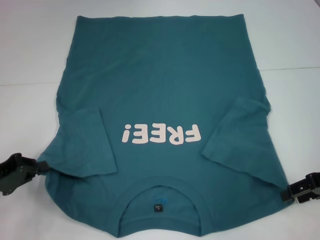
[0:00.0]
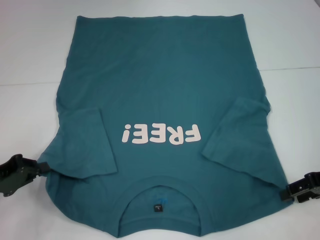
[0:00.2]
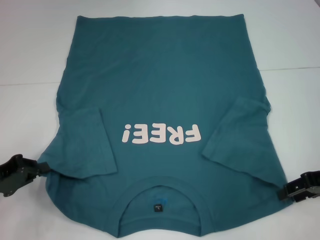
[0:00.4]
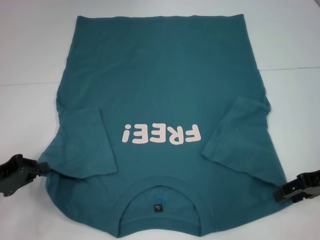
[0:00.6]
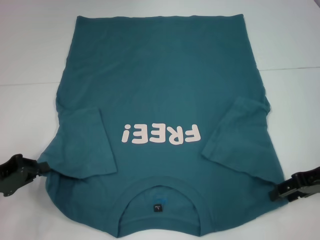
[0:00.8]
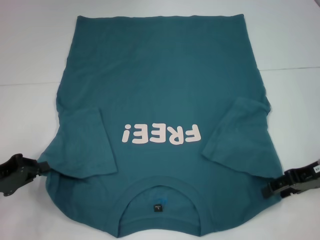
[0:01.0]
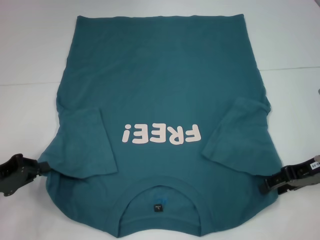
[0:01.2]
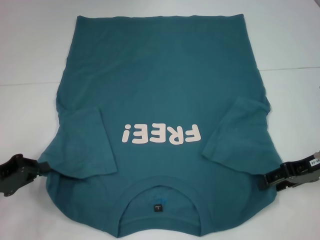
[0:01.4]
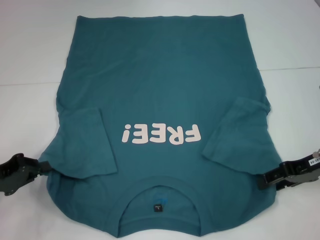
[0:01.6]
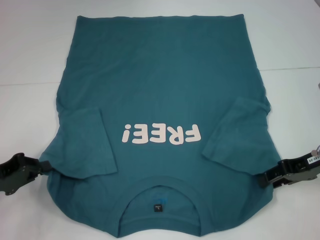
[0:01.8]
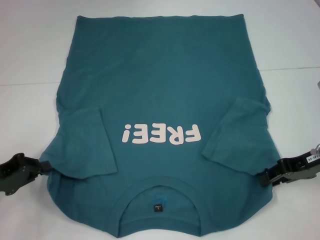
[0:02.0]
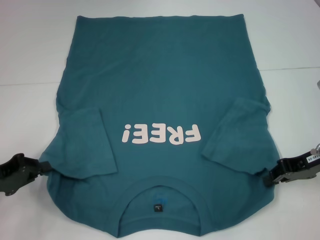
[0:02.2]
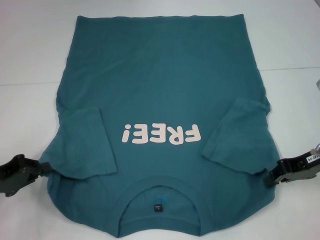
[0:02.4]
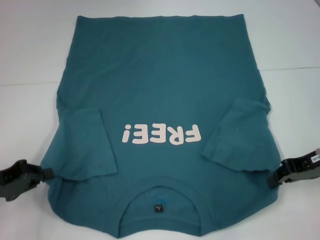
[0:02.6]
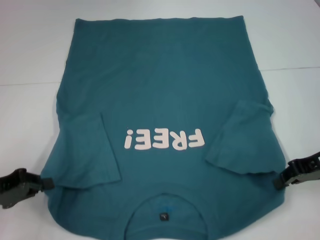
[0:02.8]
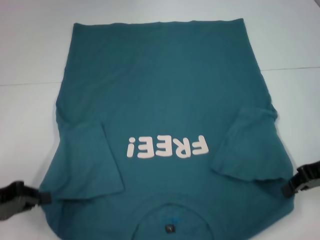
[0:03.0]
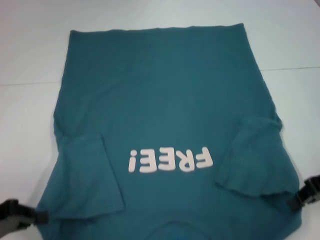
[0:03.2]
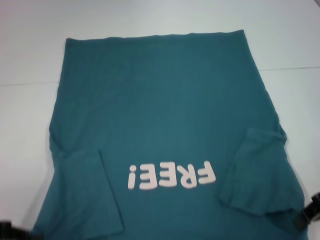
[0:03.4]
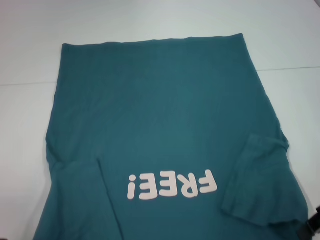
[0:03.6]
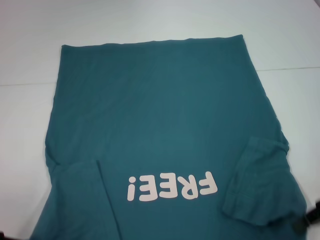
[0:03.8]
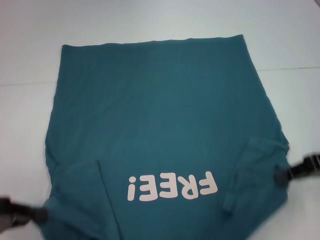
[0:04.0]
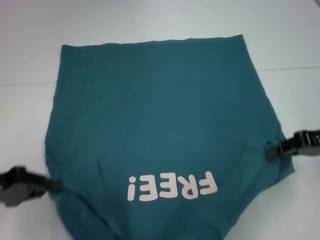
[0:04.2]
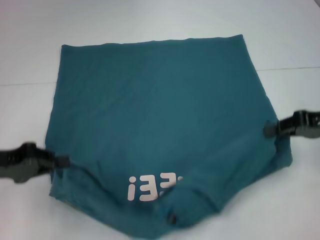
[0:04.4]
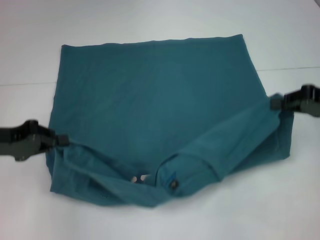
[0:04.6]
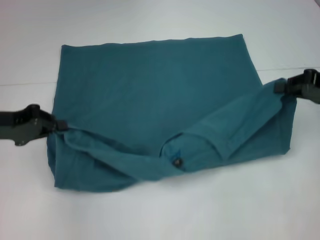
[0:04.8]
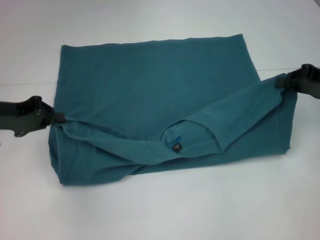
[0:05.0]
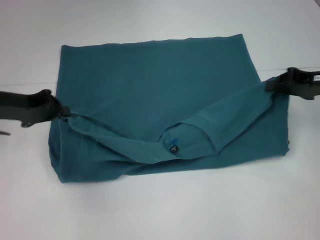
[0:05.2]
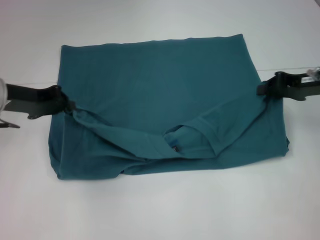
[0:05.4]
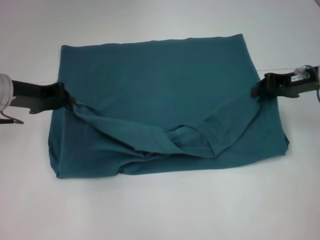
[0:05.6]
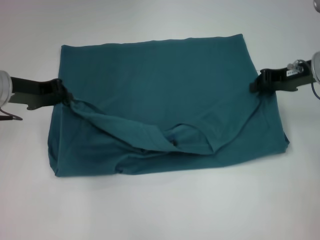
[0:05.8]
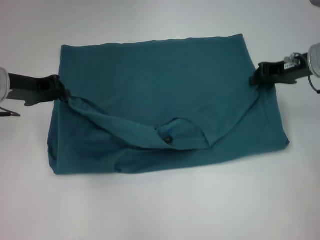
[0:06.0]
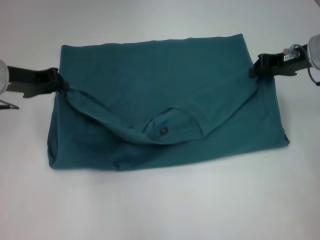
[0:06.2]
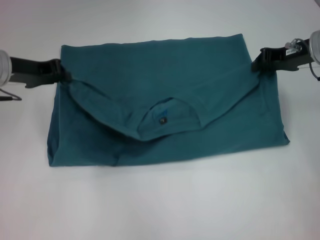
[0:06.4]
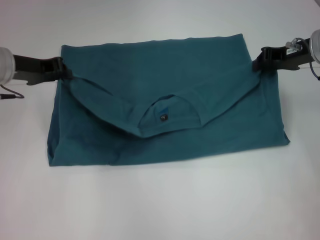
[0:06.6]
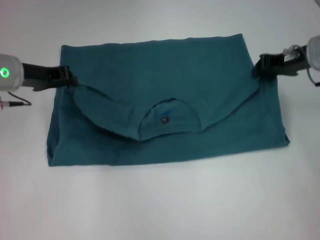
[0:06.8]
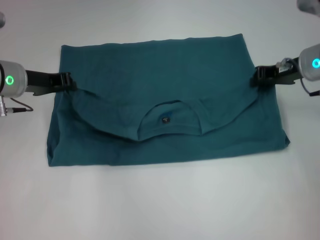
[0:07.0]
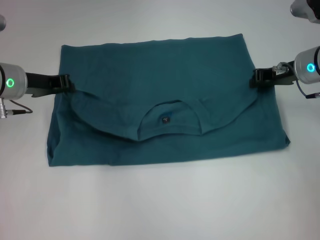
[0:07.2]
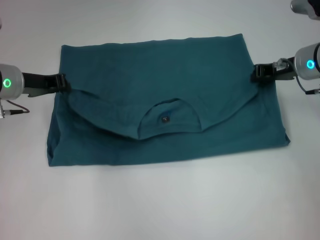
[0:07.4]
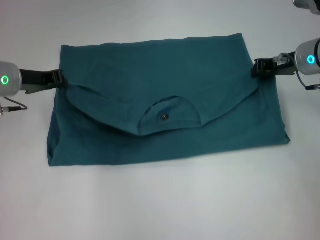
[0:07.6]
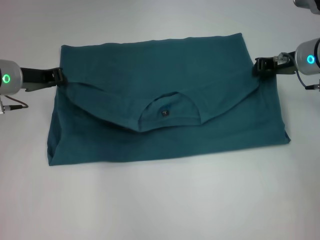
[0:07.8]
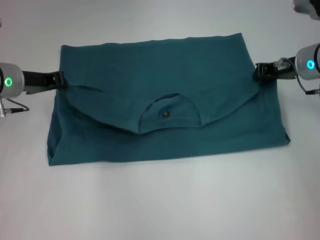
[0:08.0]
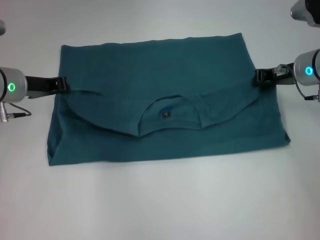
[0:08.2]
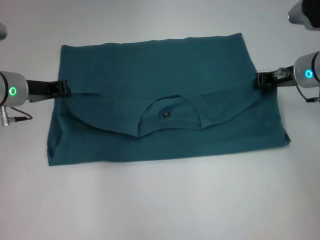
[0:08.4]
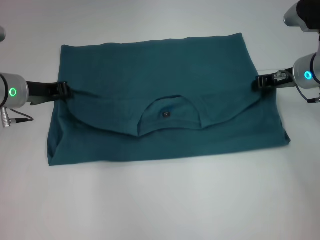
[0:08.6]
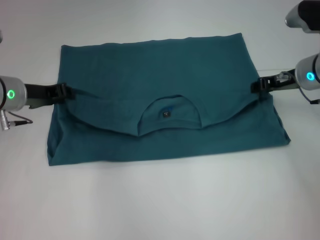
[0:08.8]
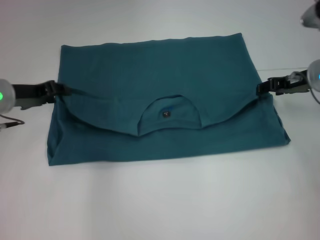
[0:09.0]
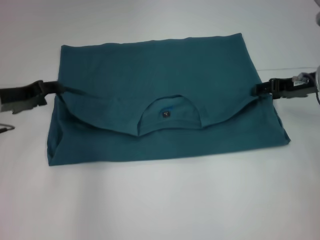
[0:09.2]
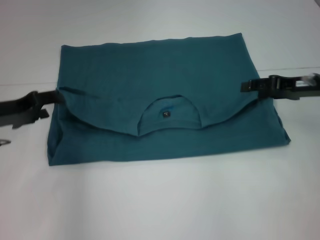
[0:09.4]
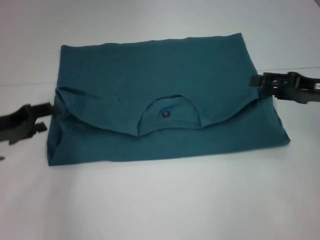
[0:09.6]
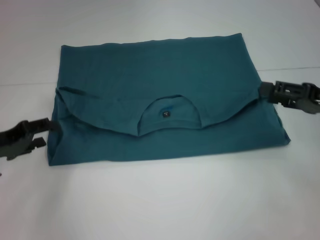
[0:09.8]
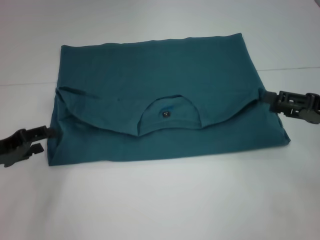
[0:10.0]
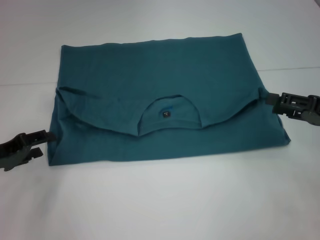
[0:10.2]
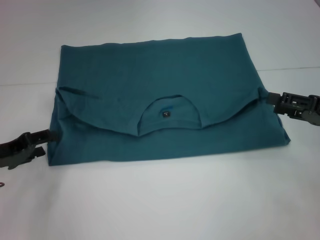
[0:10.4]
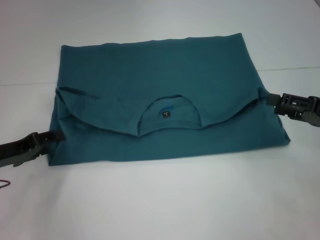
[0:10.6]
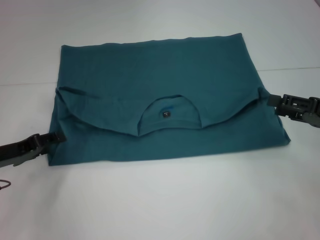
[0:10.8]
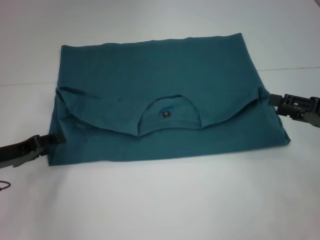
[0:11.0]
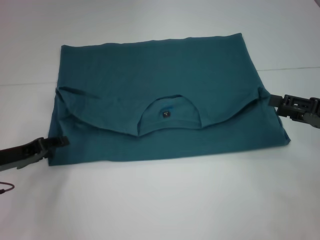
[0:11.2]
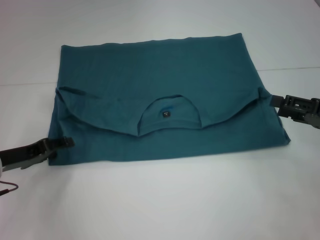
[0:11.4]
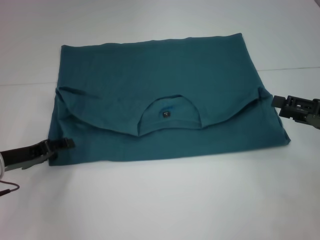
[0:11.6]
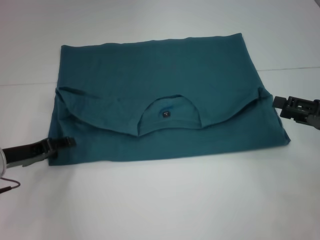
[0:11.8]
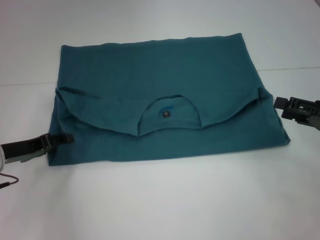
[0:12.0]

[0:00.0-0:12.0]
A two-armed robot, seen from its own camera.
Step, 0.0 to 2.2 s: Grab the bottom right corner with your right hand.
Step, 2.4 to 8.6 s: Fold the clothes to the left.
Step, 2.4 to 8.6 s: Fold the clothes to the right.
0.0 to 1.6 s: The grippers stay close to where they were, moving slightly.
1.6 to 3.0 s: The right gripper closes up.
3.0 to 4.4 s: The left gripper shifts by about 5 cm.
4.4 to 6.0 s: The right gripper moves forward and to the left, about 10 cm, while the left gripper goes approximately 10 cm forward.
6.0 to 7.6 s: The grippers stay close to where they were, moving slightly.
7.6 to 9.0 s: The right gripper opens, while the left gripper opens its fingers.
9.0 to 10.4 s: The left gripper heads backward and downward, covering approximately 10 cm. Meanwhile the right gripper travels backward and to the right by roughly 15 cm, and opens up.
10.4 to 12.0 s: The grippers move only a little.

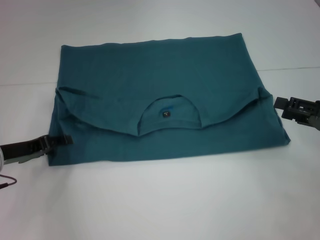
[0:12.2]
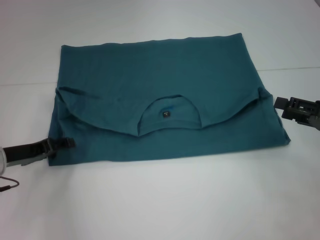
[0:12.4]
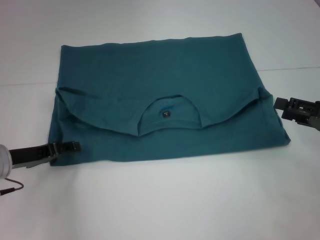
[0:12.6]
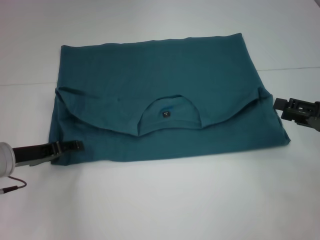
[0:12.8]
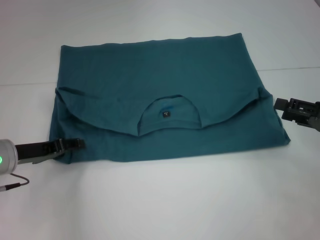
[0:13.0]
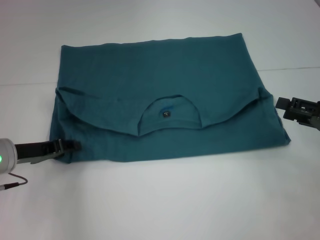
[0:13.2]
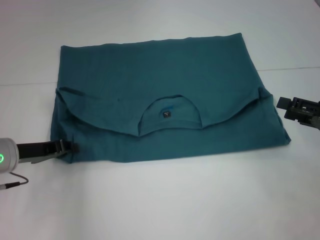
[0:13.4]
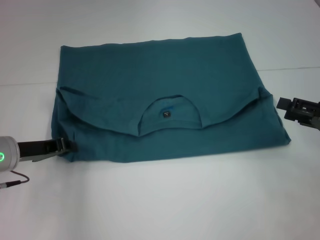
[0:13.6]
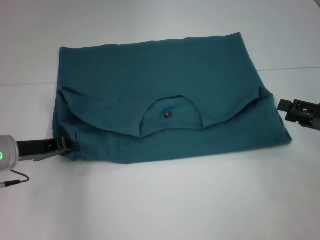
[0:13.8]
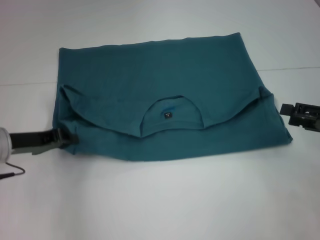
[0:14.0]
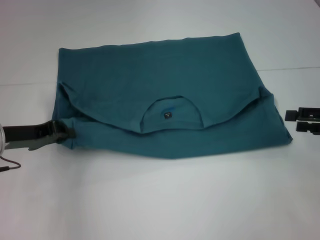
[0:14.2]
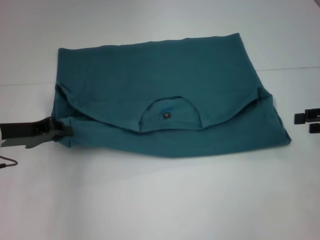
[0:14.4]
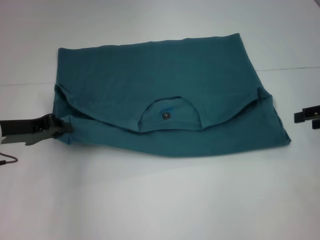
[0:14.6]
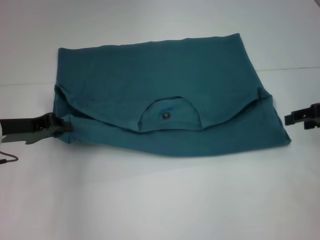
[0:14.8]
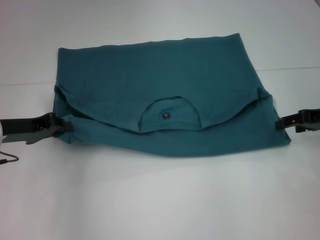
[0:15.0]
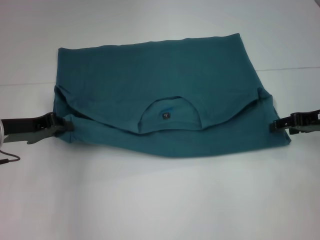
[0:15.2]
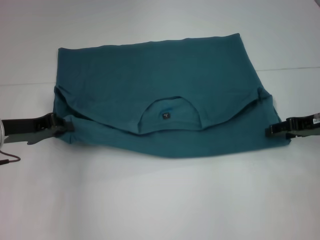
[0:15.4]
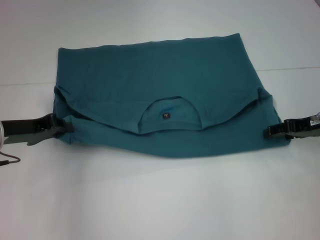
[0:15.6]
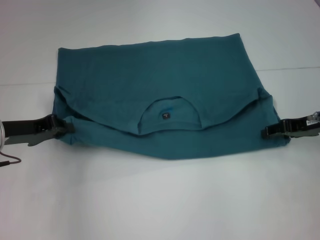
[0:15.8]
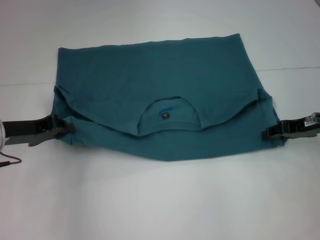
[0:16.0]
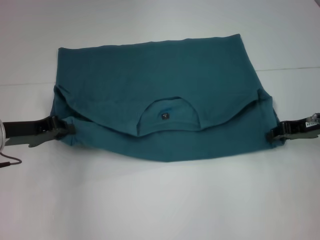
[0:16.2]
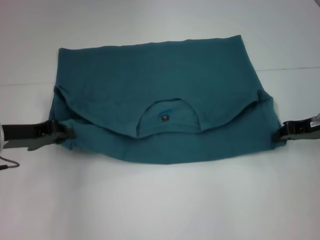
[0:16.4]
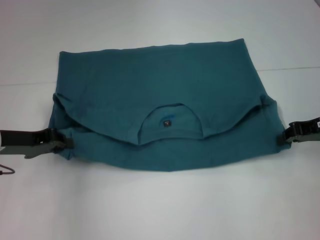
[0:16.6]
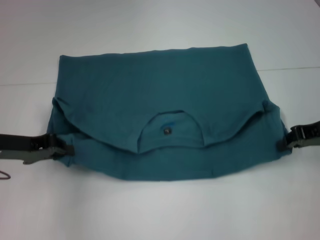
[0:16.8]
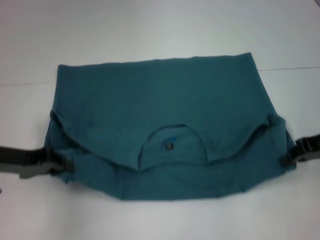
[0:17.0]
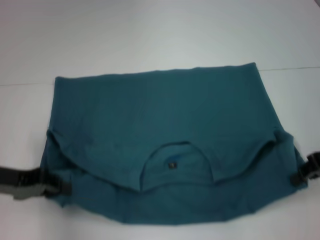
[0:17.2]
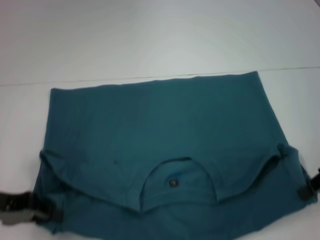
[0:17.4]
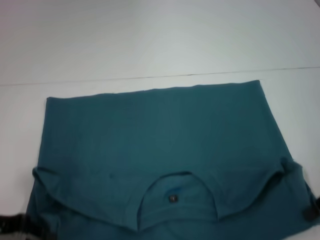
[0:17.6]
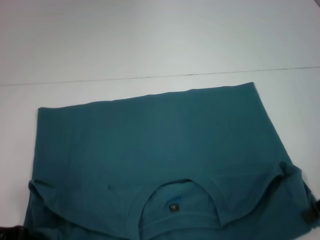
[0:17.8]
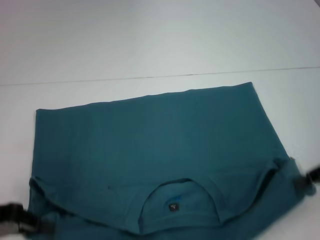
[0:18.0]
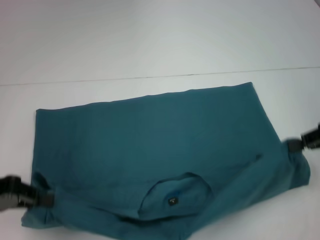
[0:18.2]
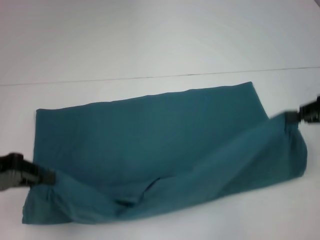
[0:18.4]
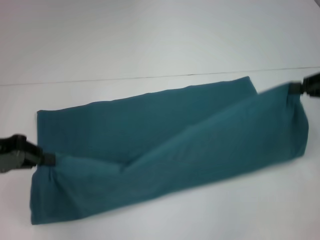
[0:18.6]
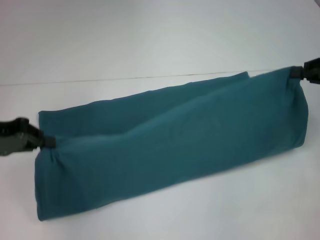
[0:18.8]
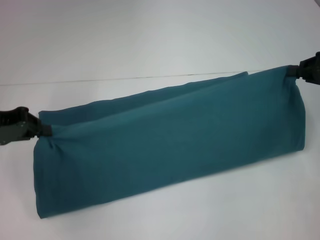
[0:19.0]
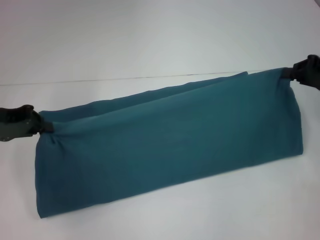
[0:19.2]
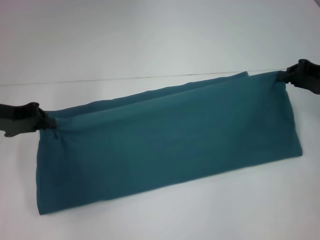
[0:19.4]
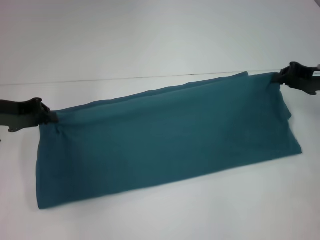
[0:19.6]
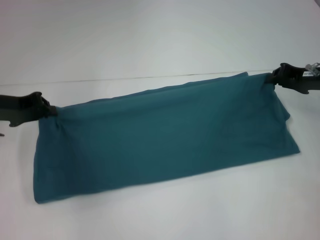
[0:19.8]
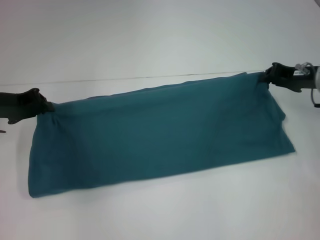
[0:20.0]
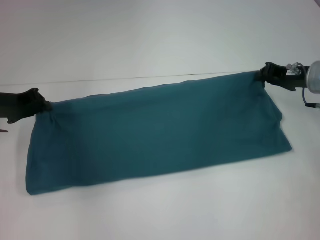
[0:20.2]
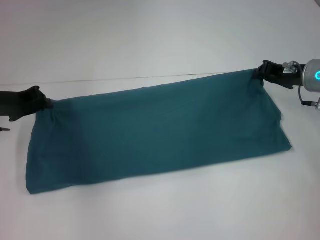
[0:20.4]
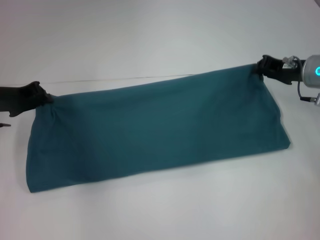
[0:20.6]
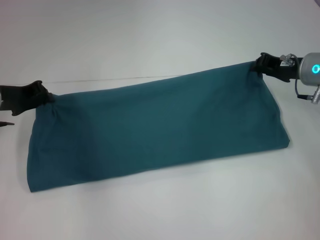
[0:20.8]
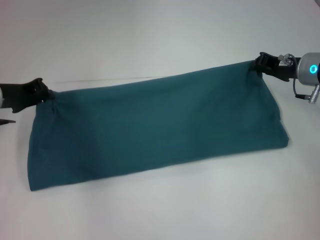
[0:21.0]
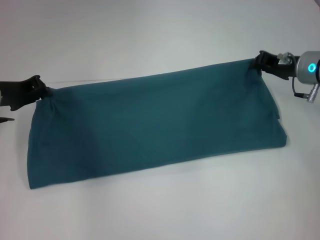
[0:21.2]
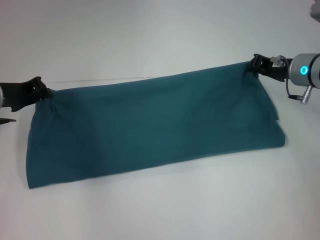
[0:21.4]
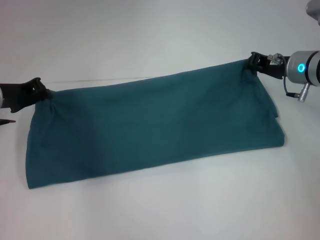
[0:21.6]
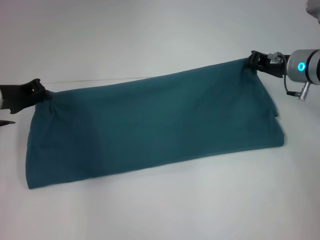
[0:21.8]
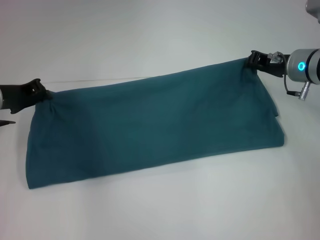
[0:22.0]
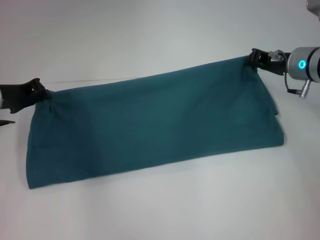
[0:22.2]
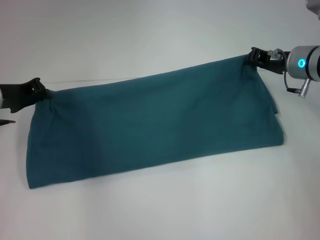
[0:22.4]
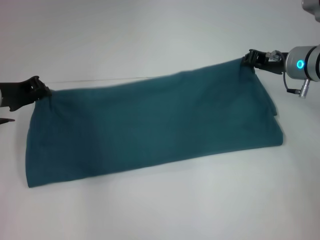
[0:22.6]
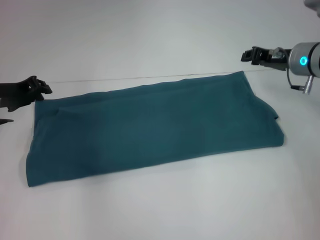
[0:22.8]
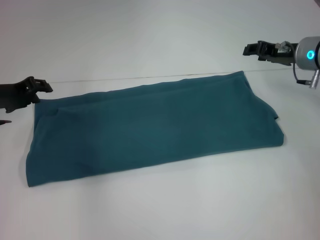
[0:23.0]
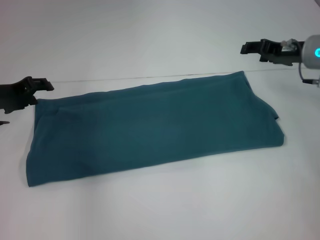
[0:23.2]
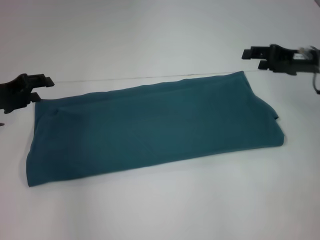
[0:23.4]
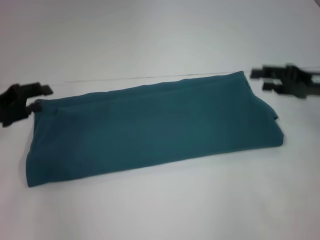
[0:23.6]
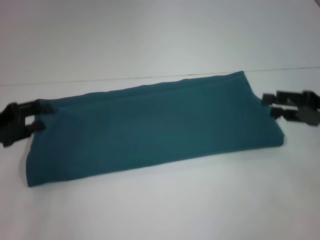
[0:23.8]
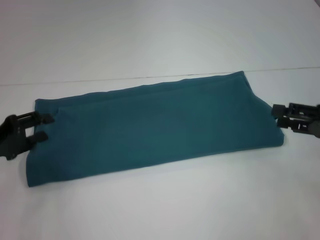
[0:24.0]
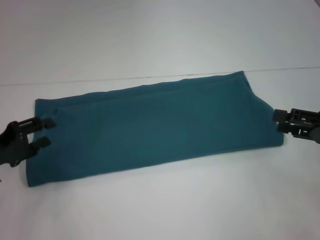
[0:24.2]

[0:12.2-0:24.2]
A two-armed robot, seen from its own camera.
Step, 12.2 to 17.6 s: Pull the clothes with your left hand.
Step, 12.2 to 17.6 s: Pull the clothes with your right hand.
Step, 17.8 to 22.6 s: Fold the clothes to the right.
12.2 to 13.8 s: The left gripper closes up.
13.8 to 15.2 s: The right gripper heads forward, covering approximately 10 cm.
15.2 to 16.6 s: The right gripper closes up.
16.6 to 18.2 s: The right gripper ends up approximately 5 cm from where it was, while the left gripper goes approximately 5 cm backward.
18.2 to 19.8 s: The grippers both shift forward by approximately 10 cm.
19.8 to 21.2 s: The right gripper shifts by about 5 cm.
21.2 to 22.6 s: The grippers make only small movements.
22.6 to 24.2 s: The right gripper heads backward and to the right, covering some 20 cm, and opens up, while the left gripper is displaced backward and downward by about 10 cm, and opens up.
